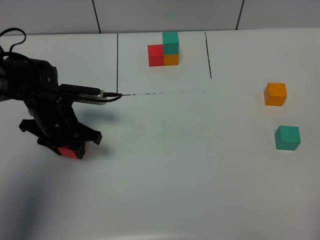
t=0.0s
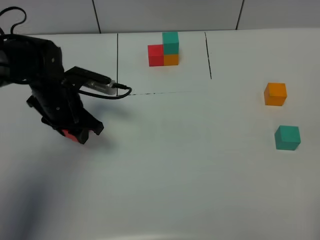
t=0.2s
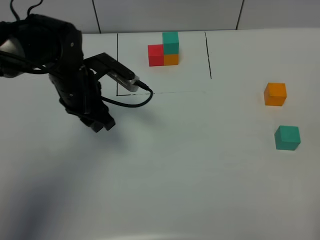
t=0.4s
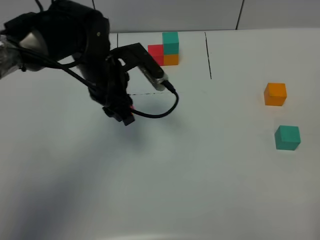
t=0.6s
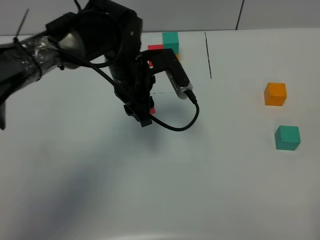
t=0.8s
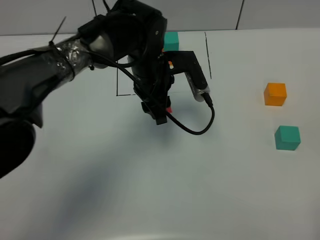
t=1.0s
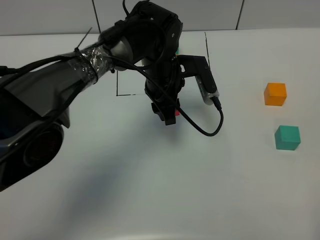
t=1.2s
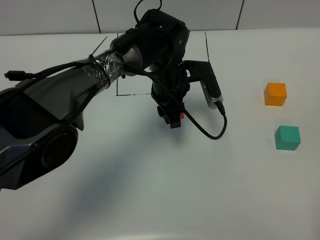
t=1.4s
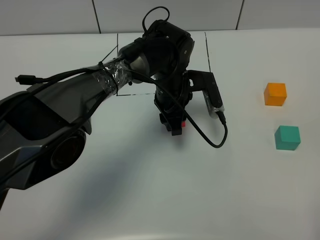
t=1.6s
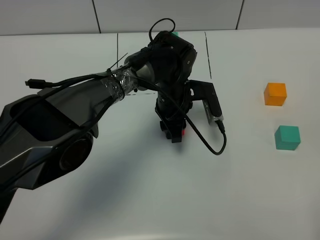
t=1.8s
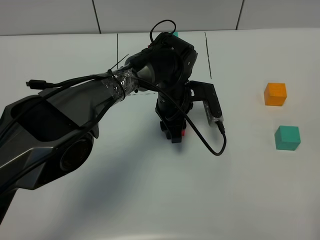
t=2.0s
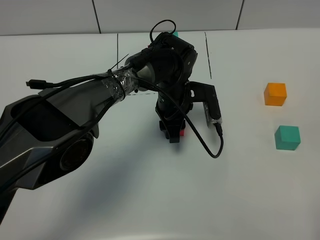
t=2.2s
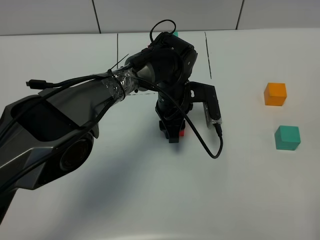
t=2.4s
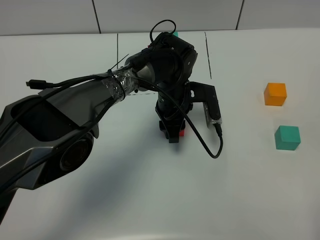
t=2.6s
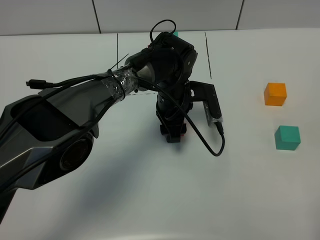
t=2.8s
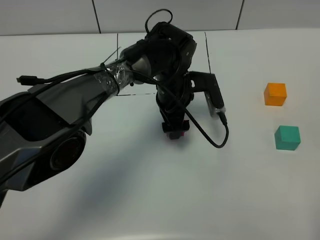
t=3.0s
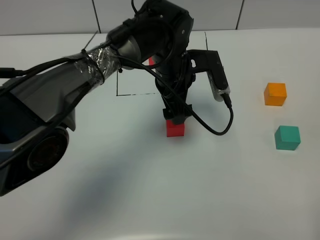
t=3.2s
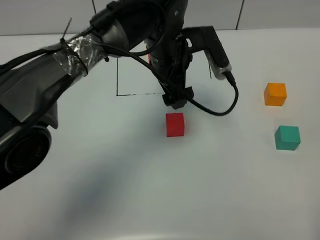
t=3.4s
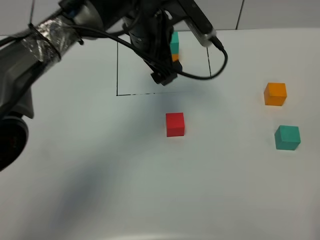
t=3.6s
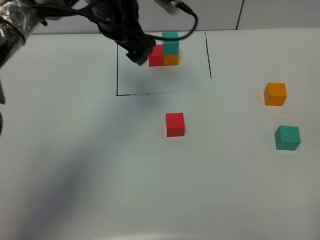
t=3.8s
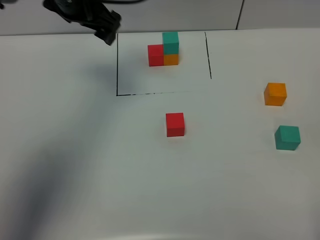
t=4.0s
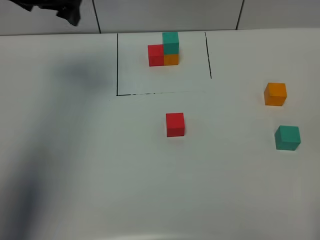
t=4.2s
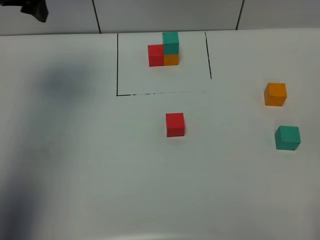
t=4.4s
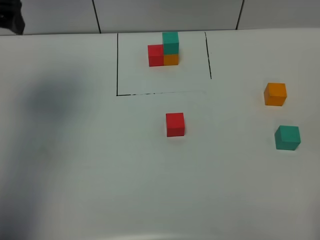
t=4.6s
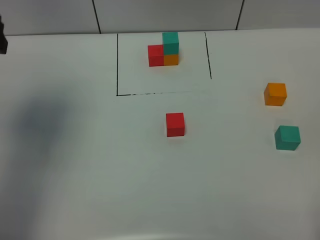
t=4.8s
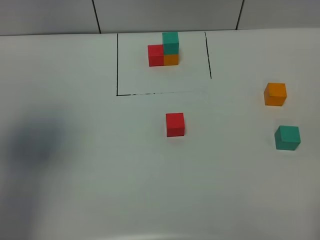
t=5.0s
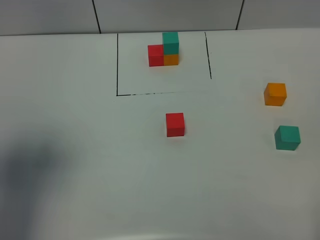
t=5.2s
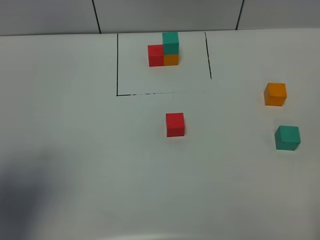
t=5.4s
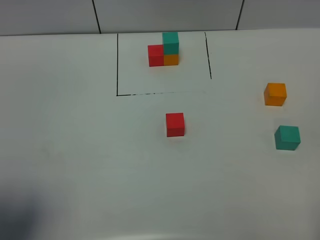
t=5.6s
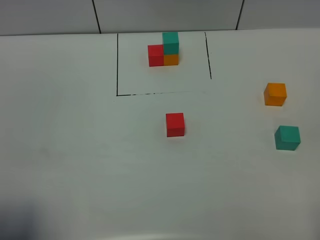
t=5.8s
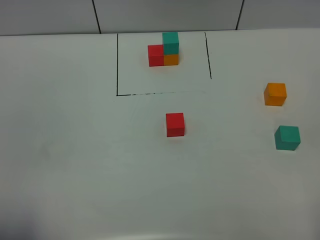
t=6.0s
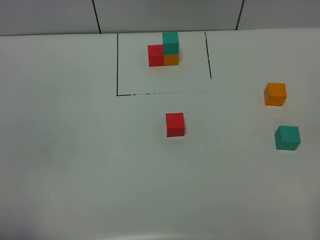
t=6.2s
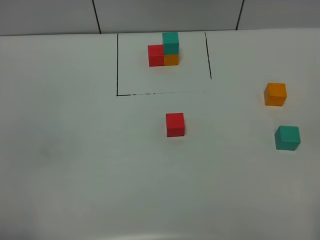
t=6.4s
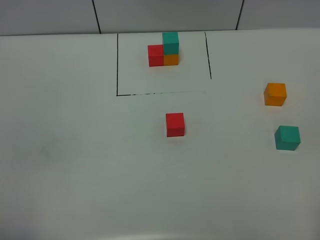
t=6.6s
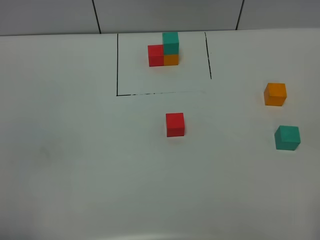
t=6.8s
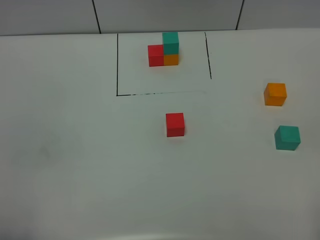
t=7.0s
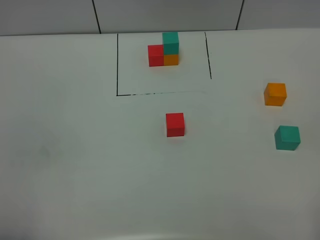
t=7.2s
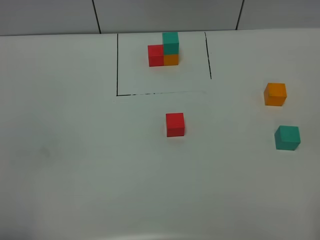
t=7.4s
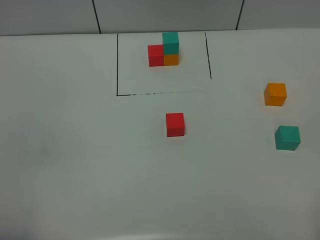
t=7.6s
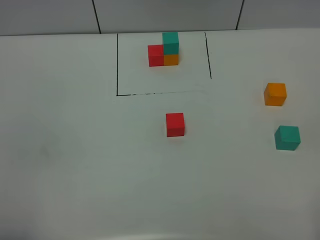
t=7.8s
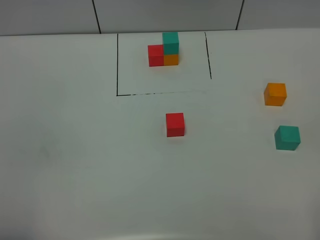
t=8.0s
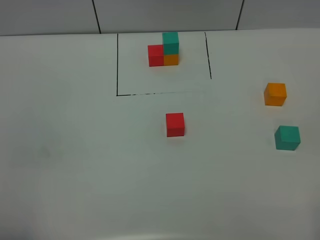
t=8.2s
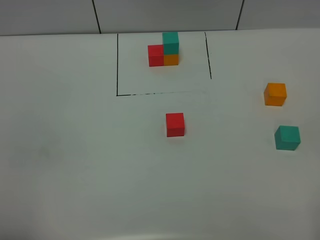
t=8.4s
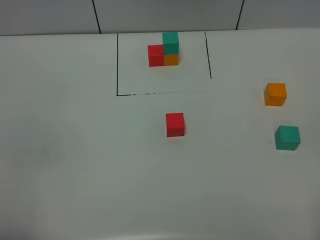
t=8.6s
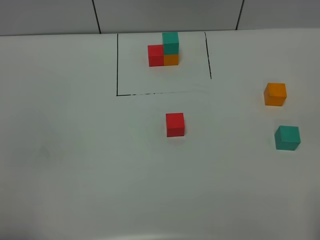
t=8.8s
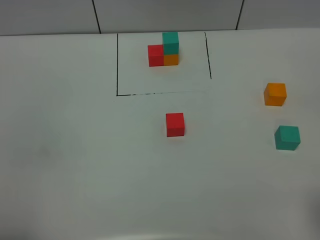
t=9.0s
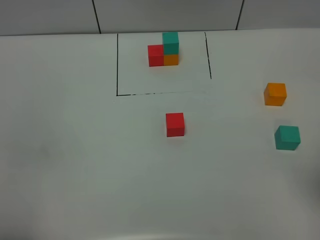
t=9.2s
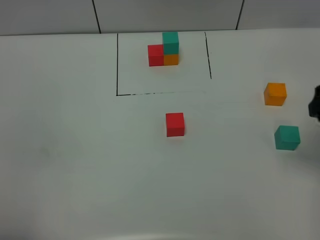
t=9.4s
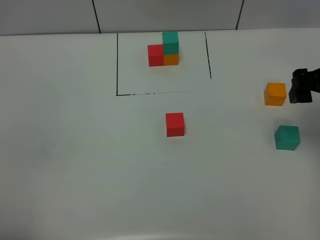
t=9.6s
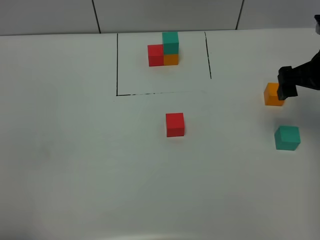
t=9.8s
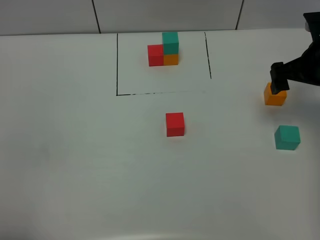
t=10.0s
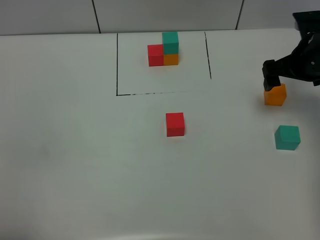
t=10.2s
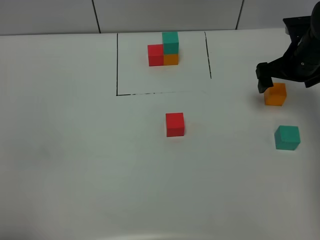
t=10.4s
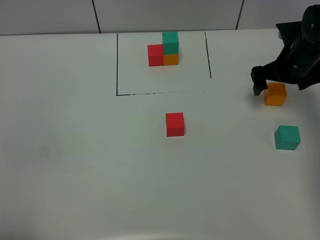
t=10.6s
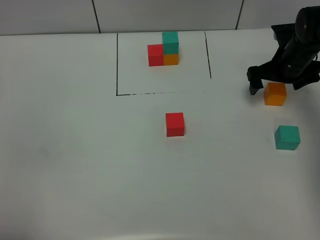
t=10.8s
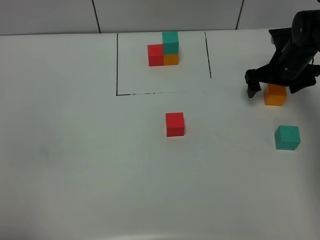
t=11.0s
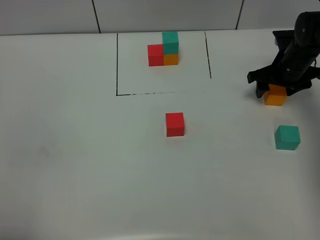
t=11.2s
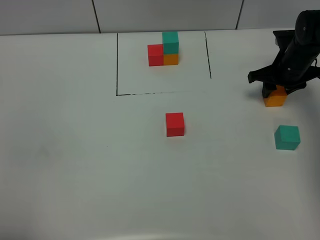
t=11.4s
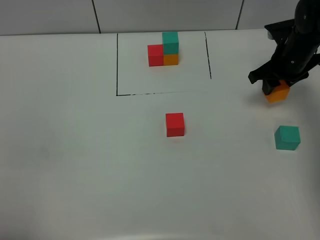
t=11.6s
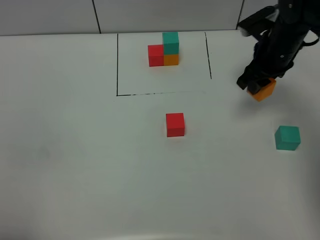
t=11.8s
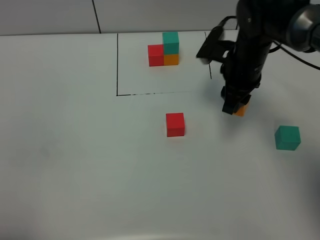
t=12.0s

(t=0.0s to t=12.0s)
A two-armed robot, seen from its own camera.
Task of the whole recording: According to the building block template in front, assemble the scattered blocks together.
Step, t=0.0s - t=2.6s: Put the red build block in the center of the table.
t=0.0s - t=1.6s: The left gripper travels to the right by about 20 cm.
t=1.6s - t=3.0s: The left gripper opens its fingers.
t=3.0s - t=4.4s: The left gripper moves to the left and upward, roughly 35 cm.
t=4.4s - t=6.0s: The left gripper travels backward by approximately 40 cm.
t=9.0s - t=10.4s: The right gripper shifts roughly 35 cm forward.
t=10.4s - t=12.0s: The right gripper heads to the left, covering about 15 cm, and closes up.

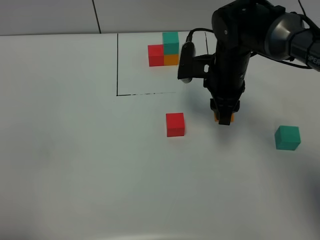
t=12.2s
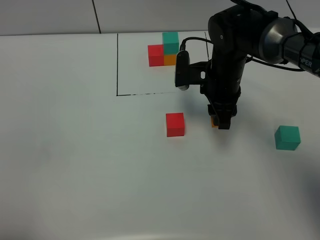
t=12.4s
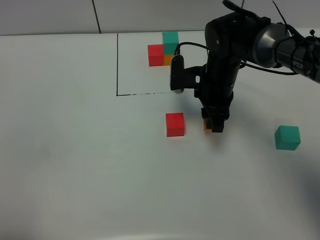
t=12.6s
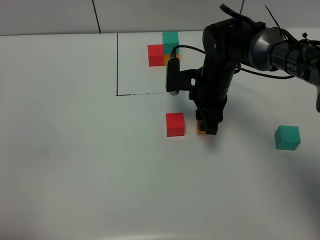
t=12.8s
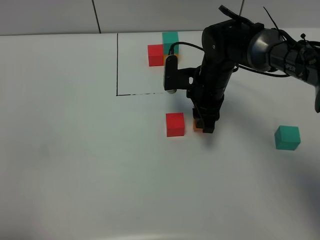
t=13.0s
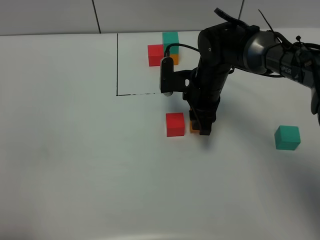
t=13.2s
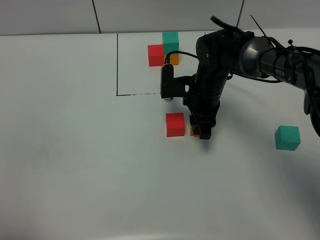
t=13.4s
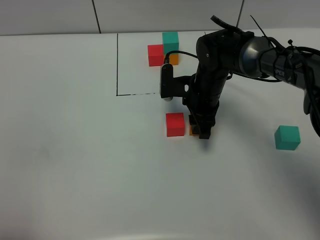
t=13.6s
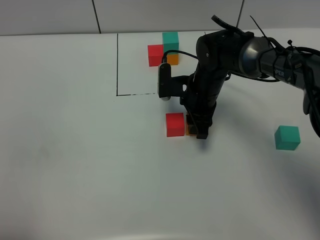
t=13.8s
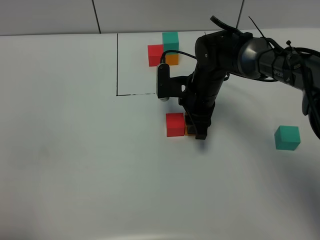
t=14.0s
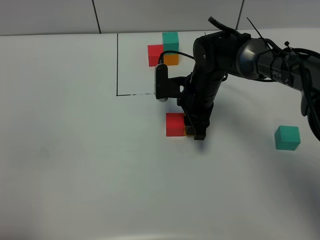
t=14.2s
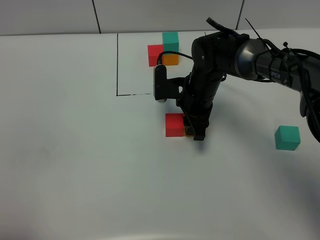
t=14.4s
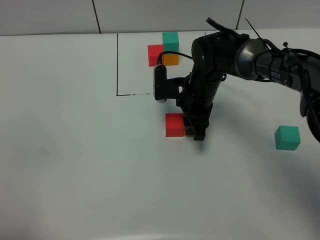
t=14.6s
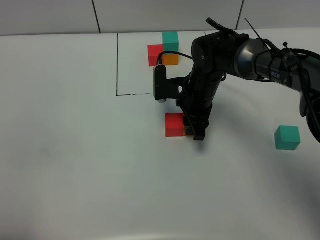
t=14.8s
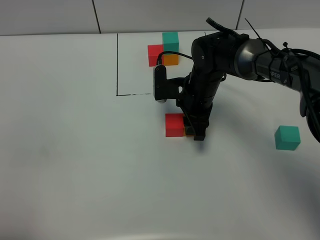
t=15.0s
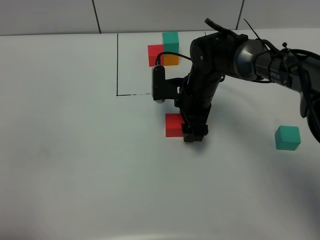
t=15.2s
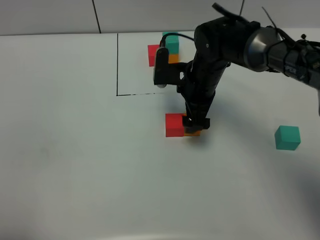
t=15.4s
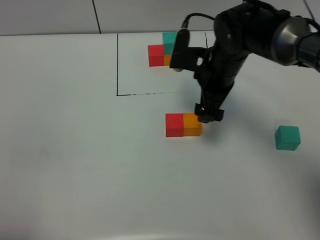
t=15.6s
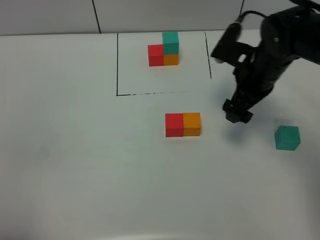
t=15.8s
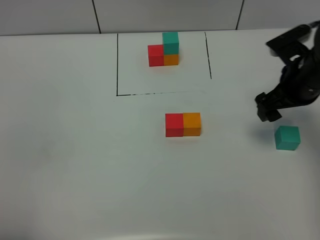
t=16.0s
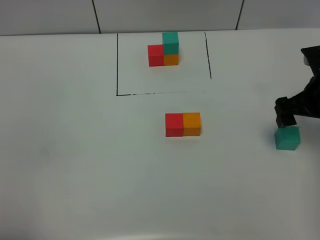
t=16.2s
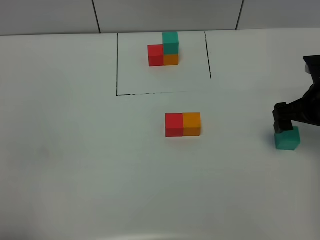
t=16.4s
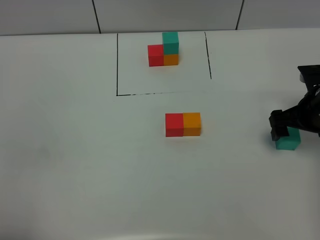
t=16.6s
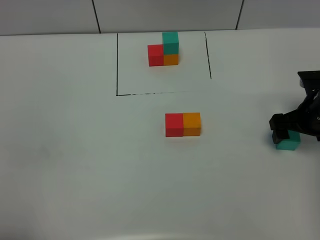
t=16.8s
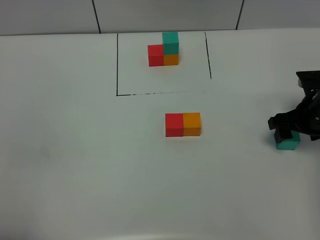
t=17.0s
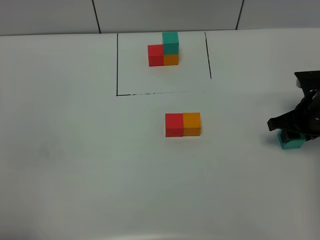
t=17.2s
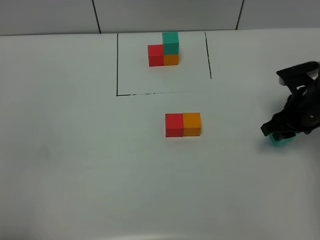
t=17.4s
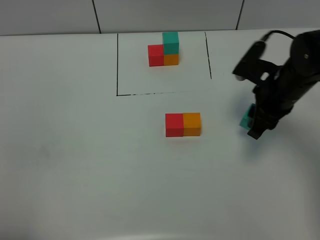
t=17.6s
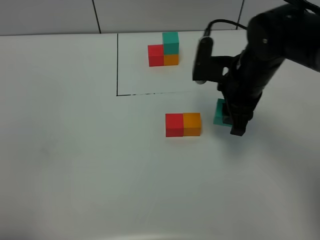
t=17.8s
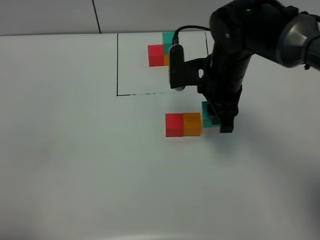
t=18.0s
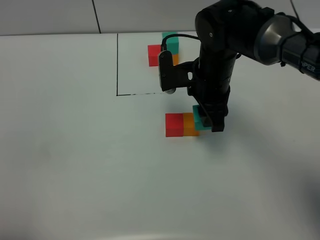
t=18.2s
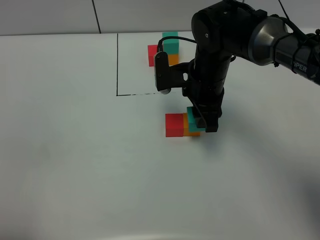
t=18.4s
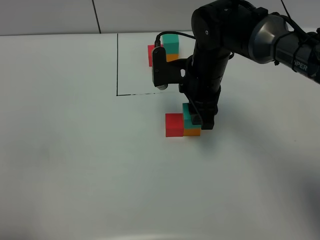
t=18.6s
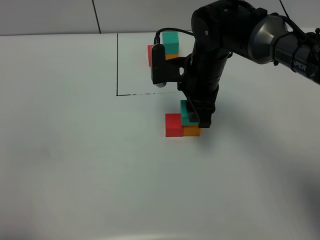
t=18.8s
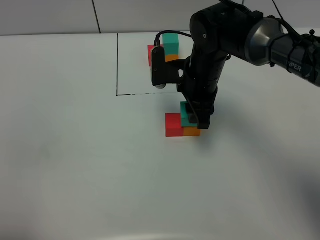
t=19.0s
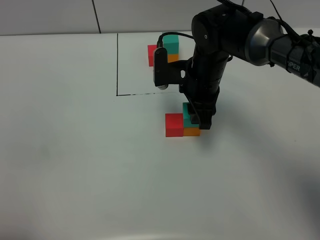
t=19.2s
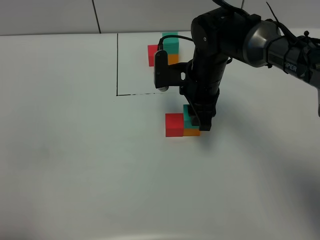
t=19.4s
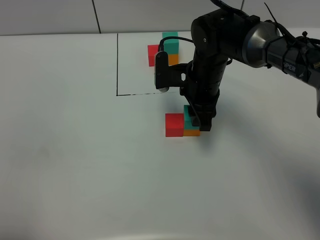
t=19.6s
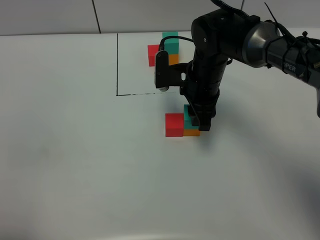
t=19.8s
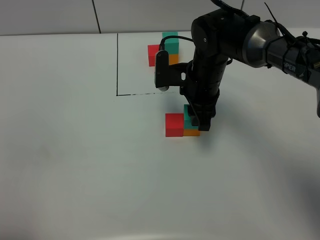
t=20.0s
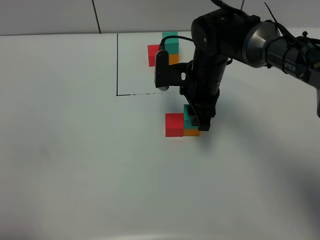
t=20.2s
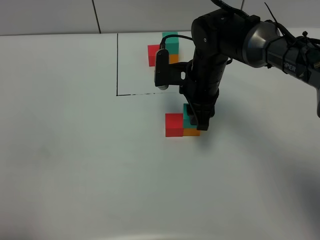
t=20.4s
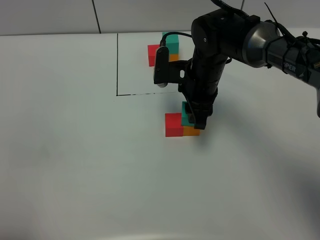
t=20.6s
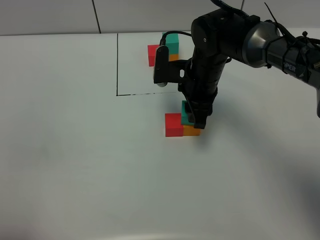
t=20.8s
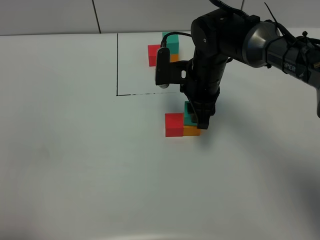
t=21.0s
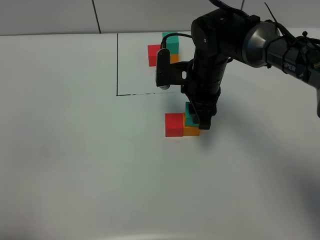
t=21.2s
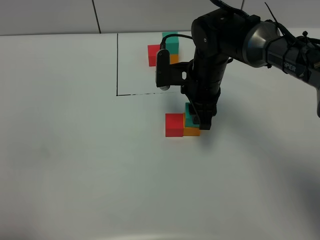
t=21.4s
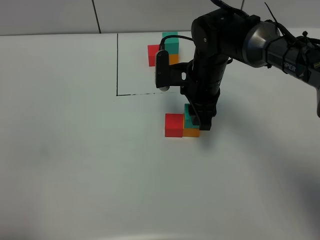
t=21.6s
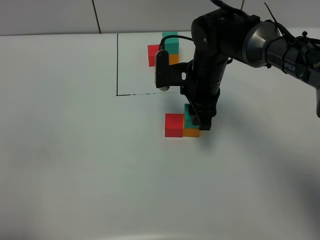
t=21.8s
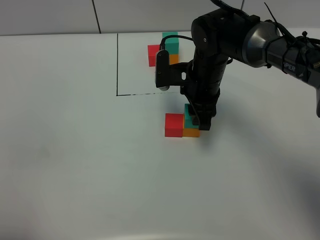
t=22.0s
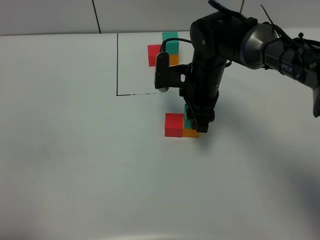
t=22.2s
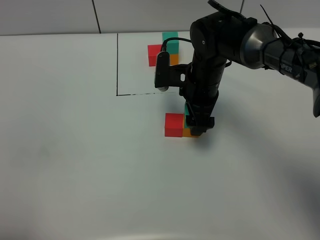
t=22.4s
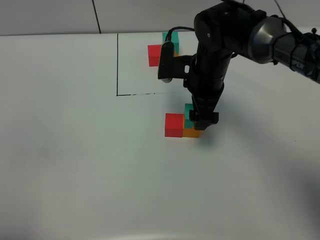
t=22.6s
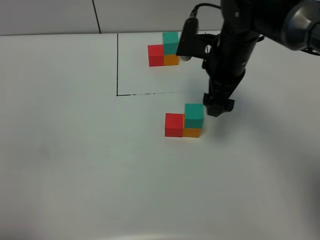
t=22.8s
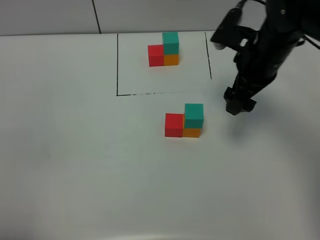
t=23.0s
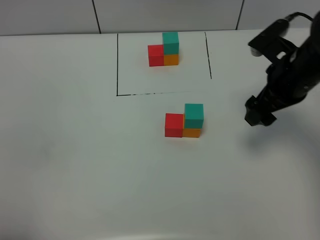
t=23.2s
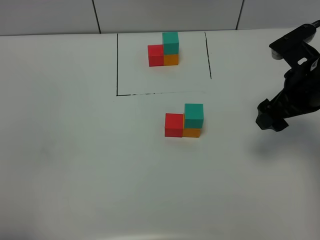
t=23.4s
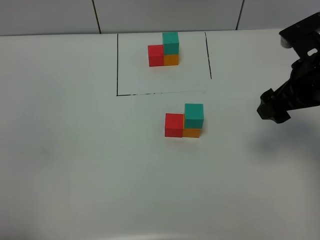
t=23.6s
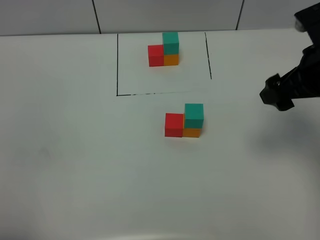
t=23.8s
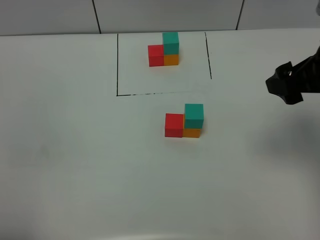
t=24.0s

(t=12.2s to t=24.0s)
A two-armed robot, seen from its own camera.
Task of the whole recording: According to the building block template in front, assemble the scattered blocks together.
Step, t=12.2s - t=15.4s: Put the orange build block on the right of the red build block.
Step, t=15.6s - t=22.4s: Put the green build block on the orange build block.
t=12.2s - t=13.6s: The right gripper is displaced downward by approximately 5 cm.
t=13.6s - t=15.2s: The right gripper opens up.
t=15.2s - t=16.6s: The right gripper shifts some 20 cm to the right.
t=16.6s - t=18.2s: The right gripper is displaced to the left by roughly 20 cm, and closes up.
t=18.2s - t=19.6s: The grippers stay close to where they were, moving slightly.
t=19.6s - t=21.0s: Both grippers stay about where they are.
t=21.0s - t=22.6s: The right gripper opens.
t=22.6s - t=24.0s: The right gripper moves backward, to the right and upward, approximately 25 cm.
